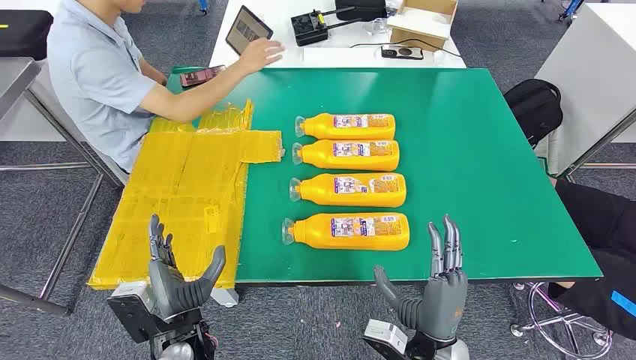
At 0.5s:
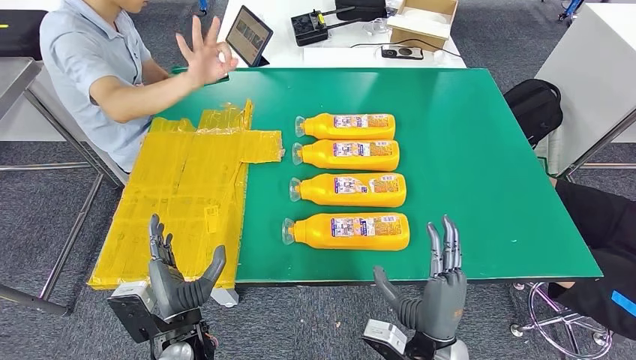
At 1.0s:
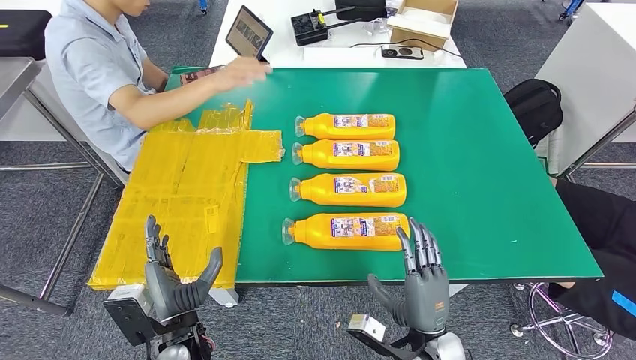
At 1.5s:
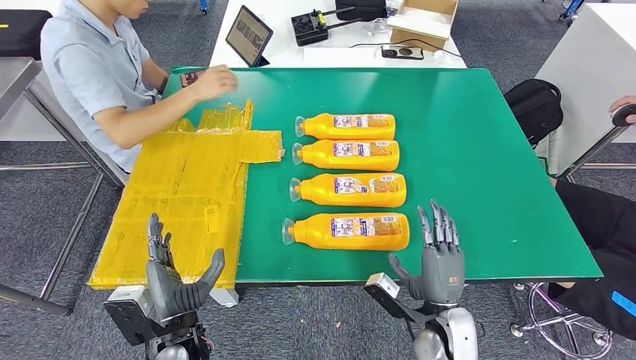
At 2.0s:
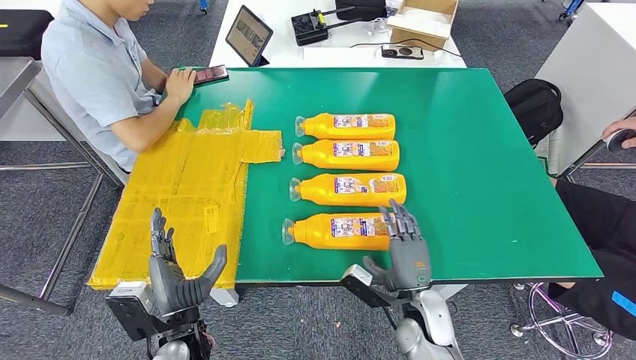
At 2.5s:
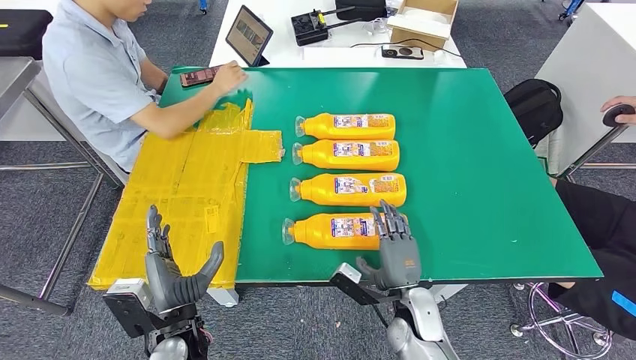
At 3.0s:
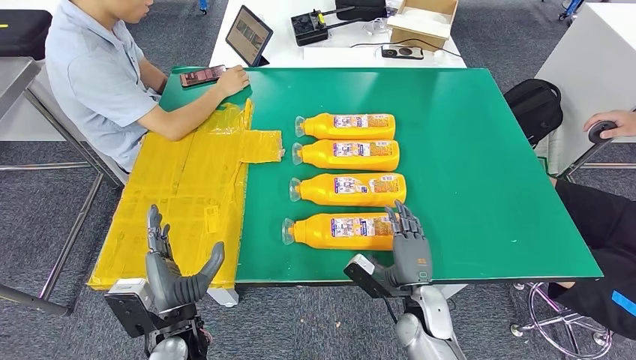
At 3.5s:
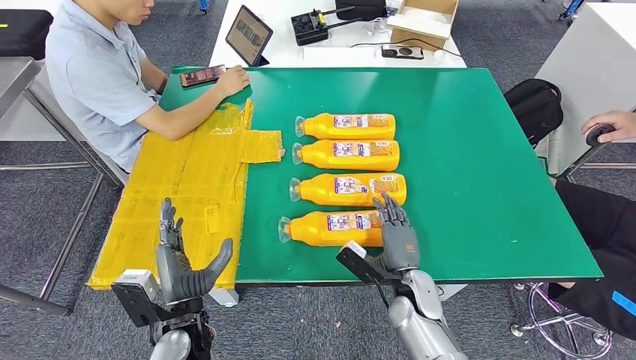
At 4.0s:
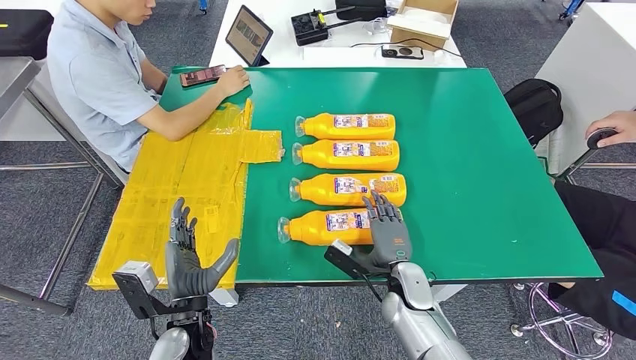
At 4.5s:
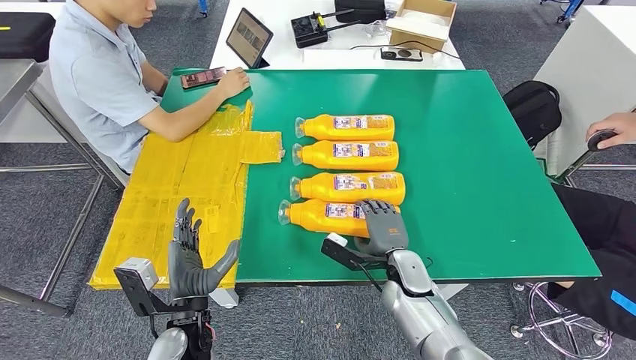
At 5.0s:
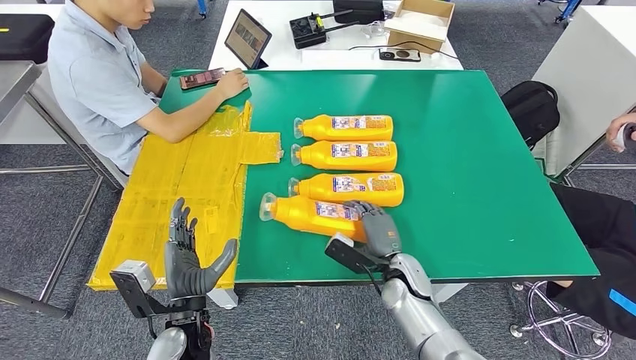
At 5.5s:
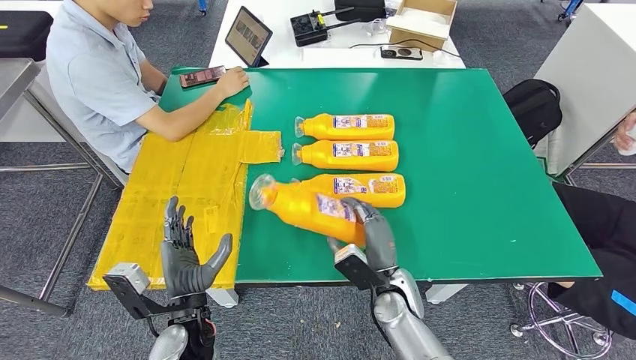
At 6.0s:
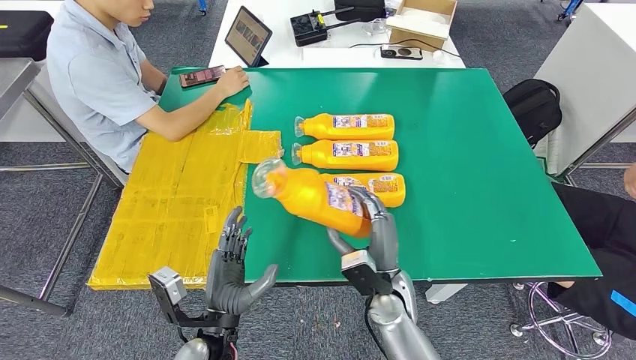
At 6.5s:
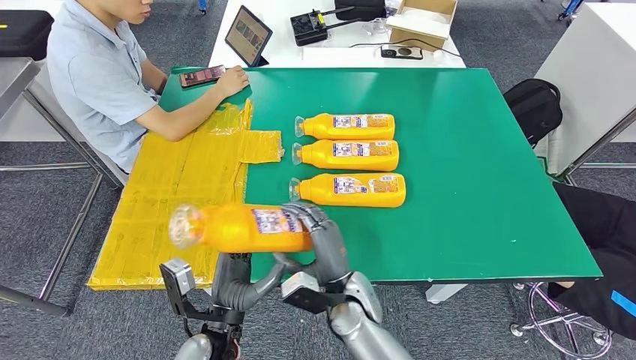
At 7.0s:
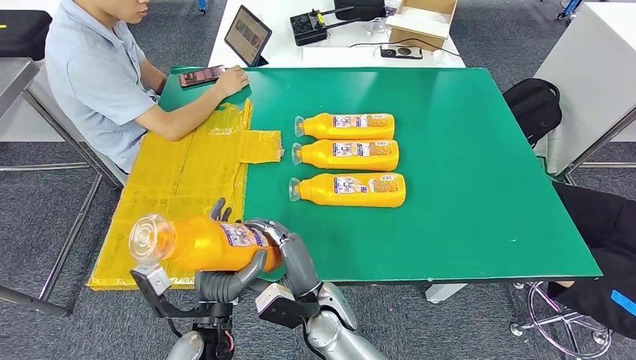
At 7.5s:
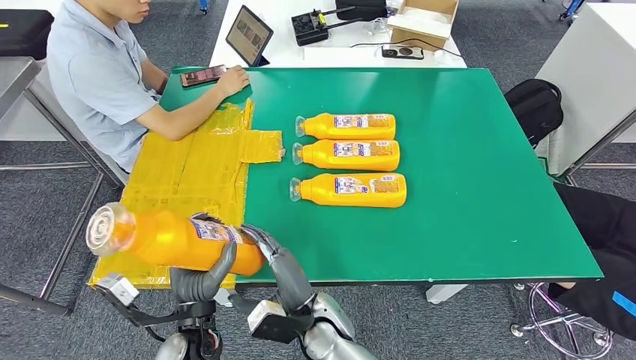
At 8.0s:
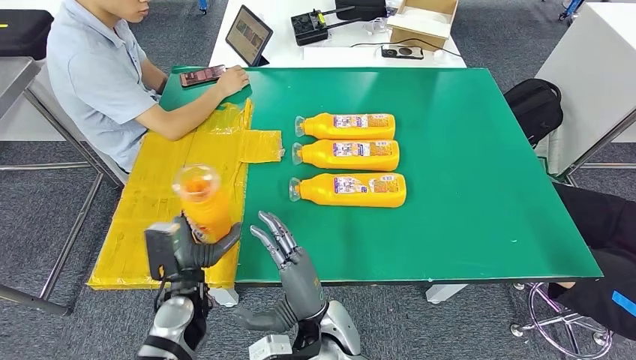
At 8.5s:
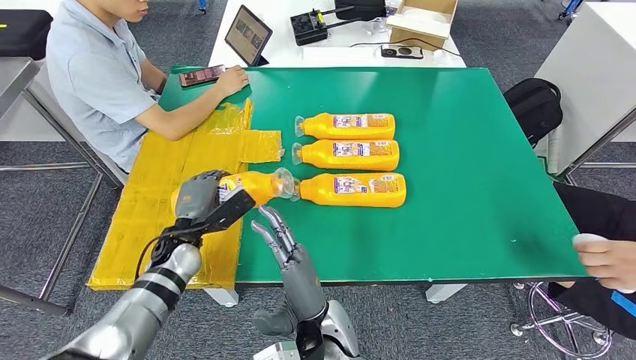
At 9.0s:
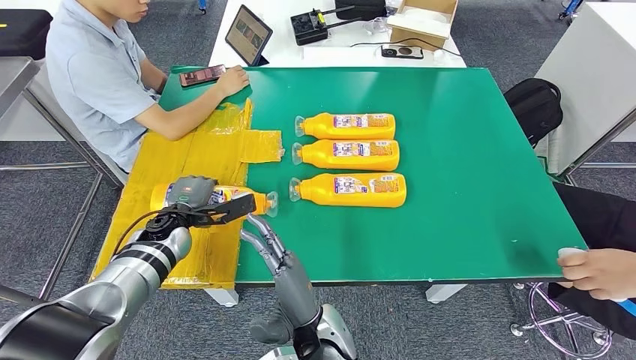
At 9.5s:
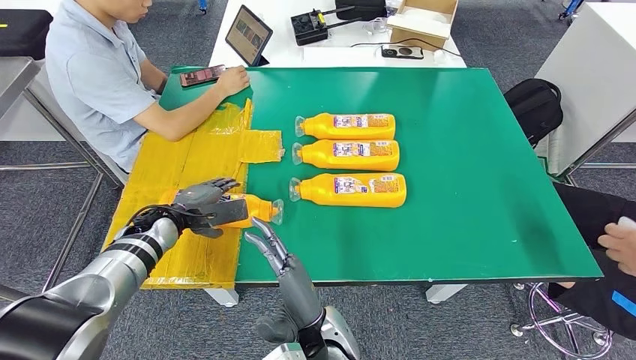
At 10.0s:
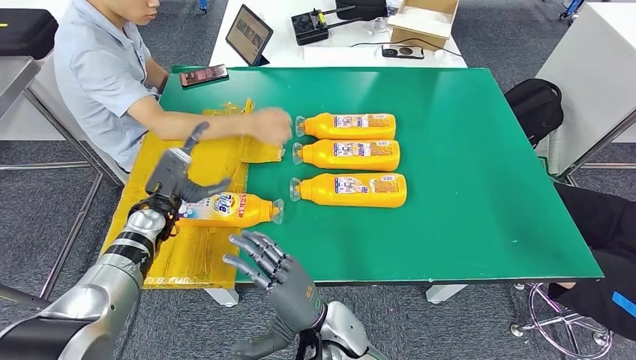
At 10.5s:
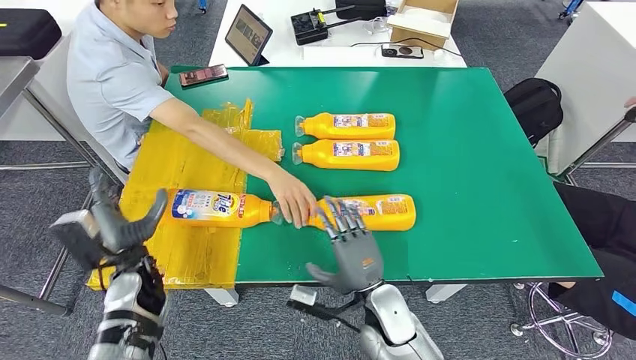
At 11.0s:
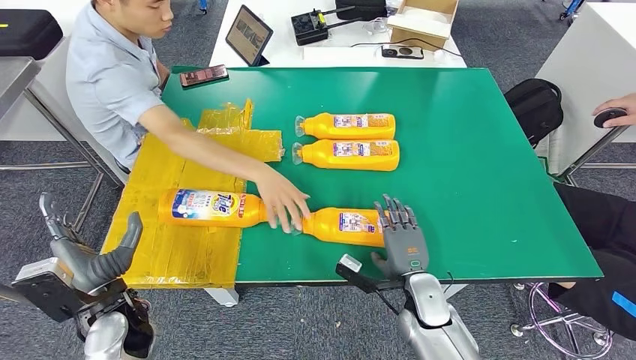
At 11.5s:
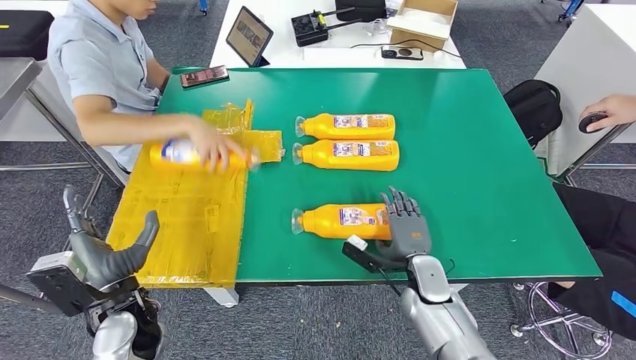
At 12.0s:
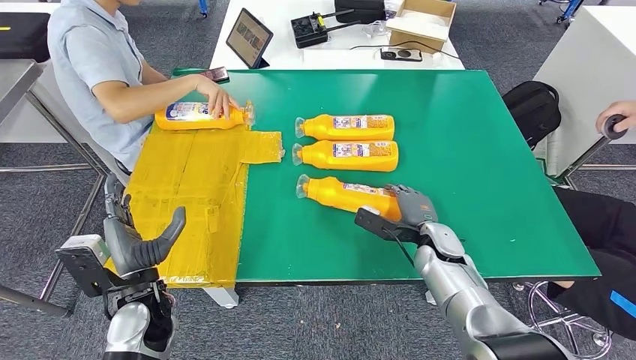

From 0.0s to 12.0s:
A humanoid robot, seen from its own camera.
Step, from 0.0s to 6.5s: Take the fast-moving consumer goods bottle from the table.
Step, from 7.0s to 9.0s: Flip the fast-moving consumer goods bottle to the front side.
From 2.0s to 4.0s: The right hand goes roughly 5 cm forward.
From 4.0s to 6.0s: The right hand moves approximately 5 cm.
From 6.0s to 8.0s: The left hand travels forward and to the left by approximately 10 cm, while the right hand heads to the left and backward, covering some 15 cm.
From 8.0s to 10.0s: The left hand heads forward and to the left, covering roughly 15 cm.

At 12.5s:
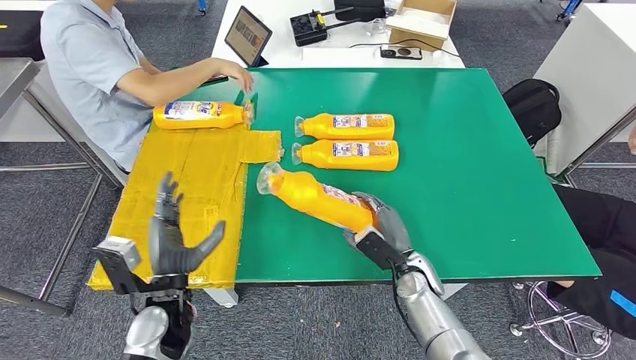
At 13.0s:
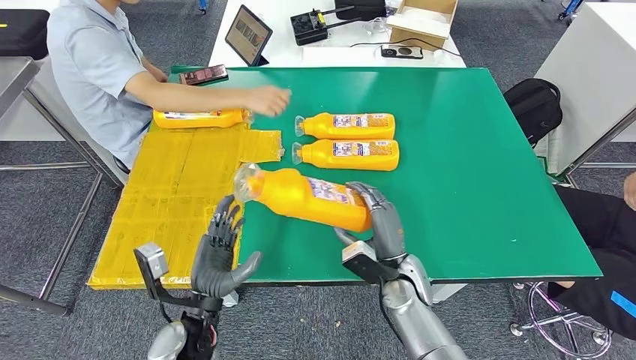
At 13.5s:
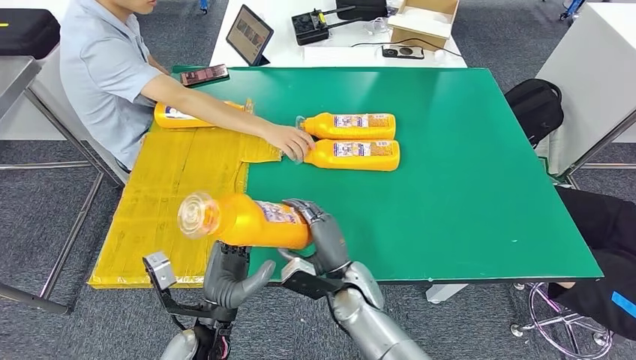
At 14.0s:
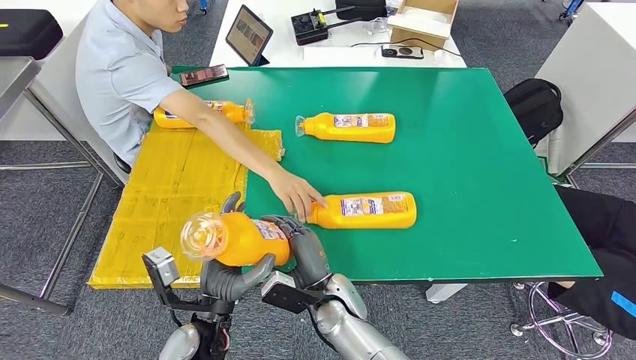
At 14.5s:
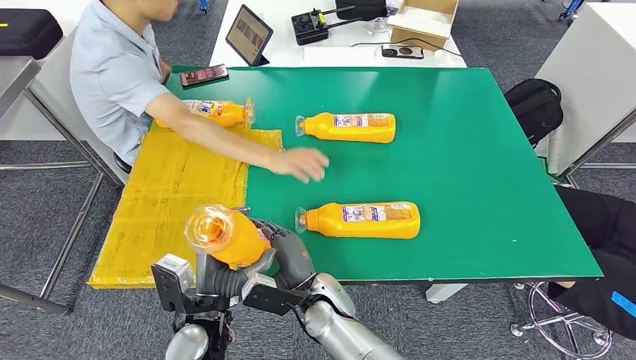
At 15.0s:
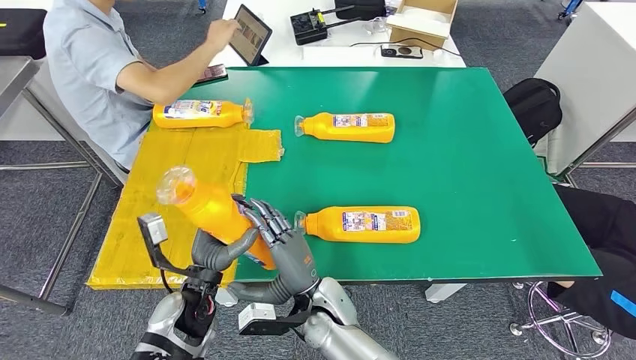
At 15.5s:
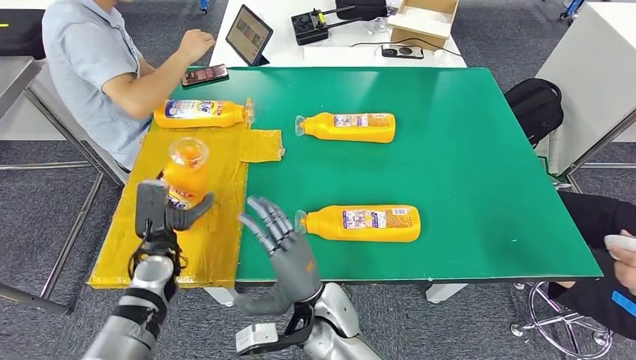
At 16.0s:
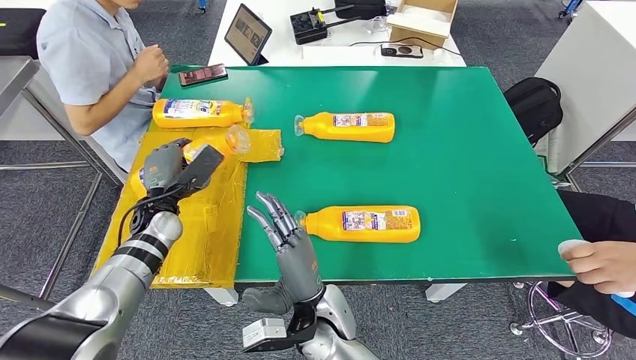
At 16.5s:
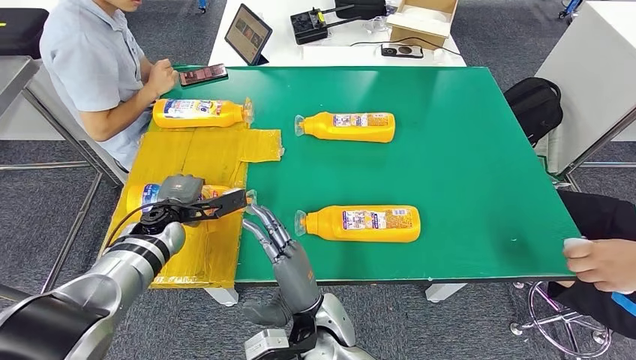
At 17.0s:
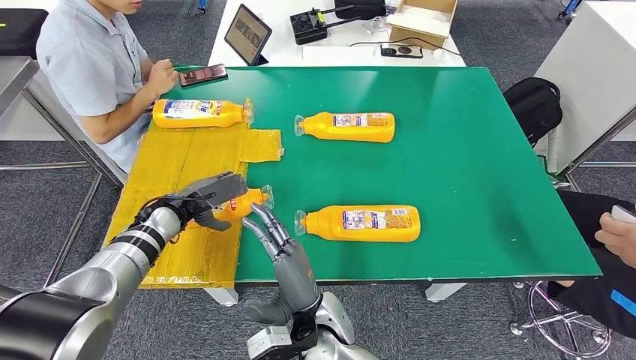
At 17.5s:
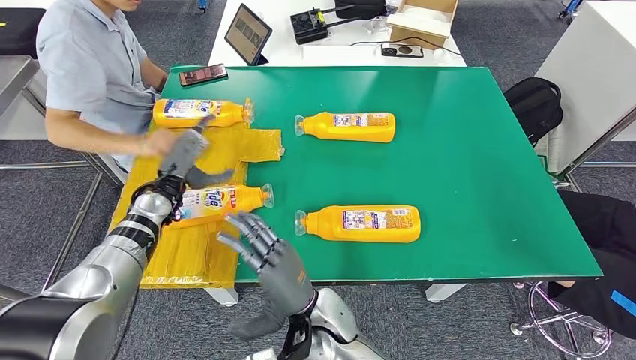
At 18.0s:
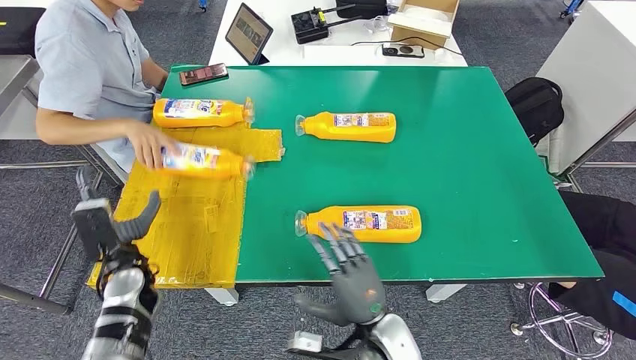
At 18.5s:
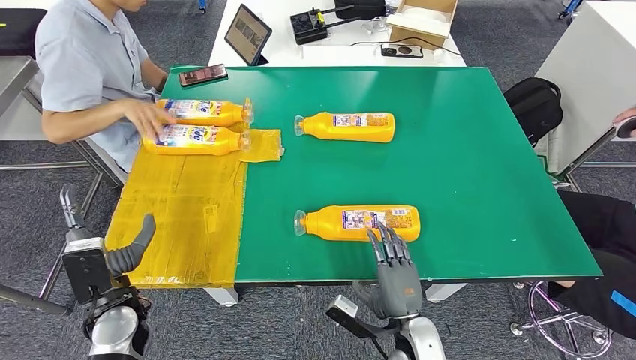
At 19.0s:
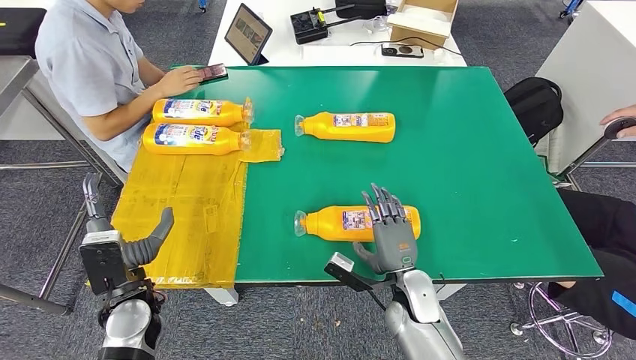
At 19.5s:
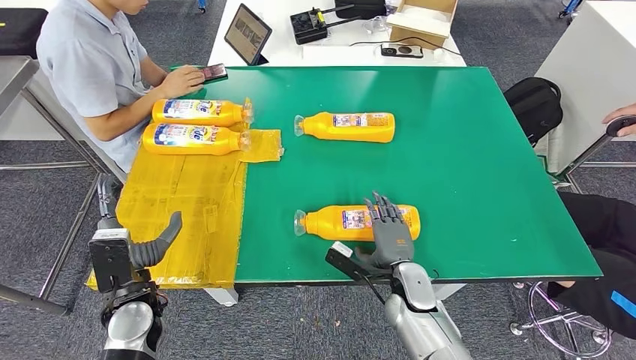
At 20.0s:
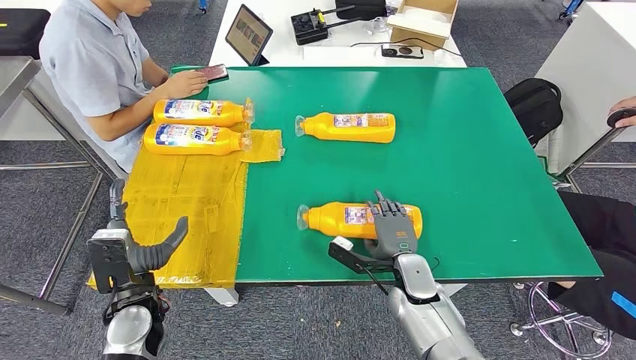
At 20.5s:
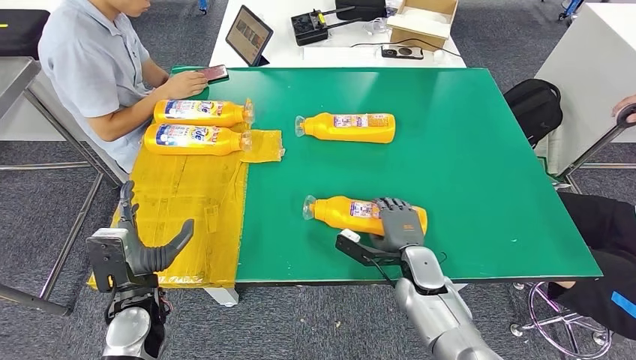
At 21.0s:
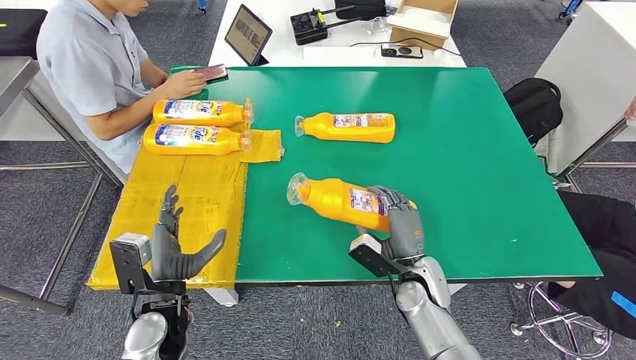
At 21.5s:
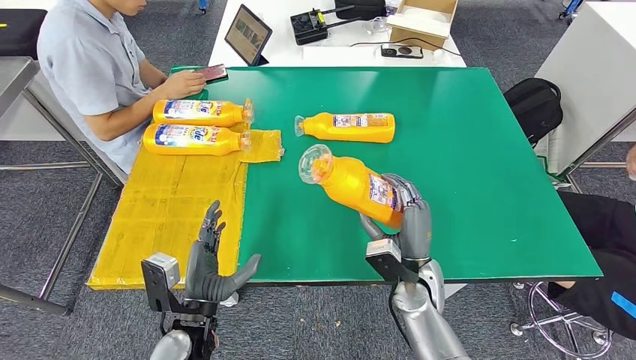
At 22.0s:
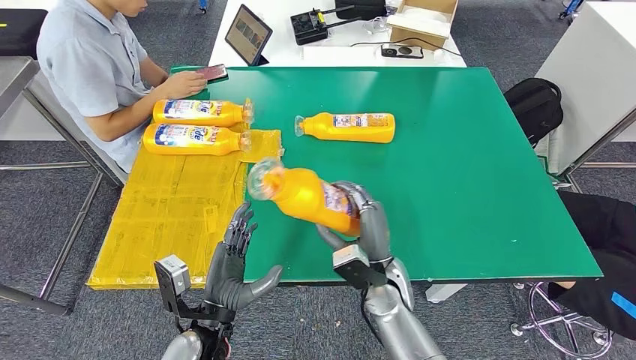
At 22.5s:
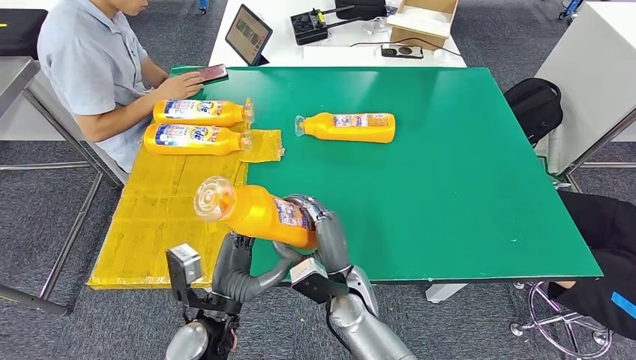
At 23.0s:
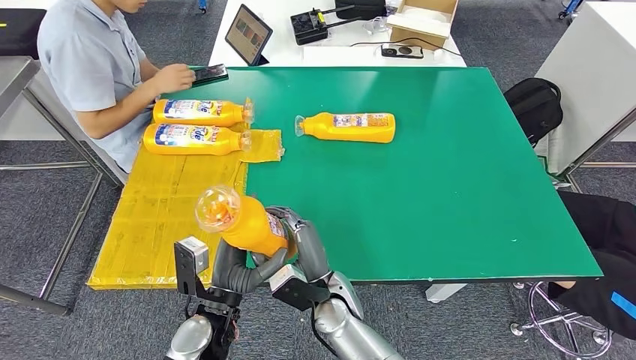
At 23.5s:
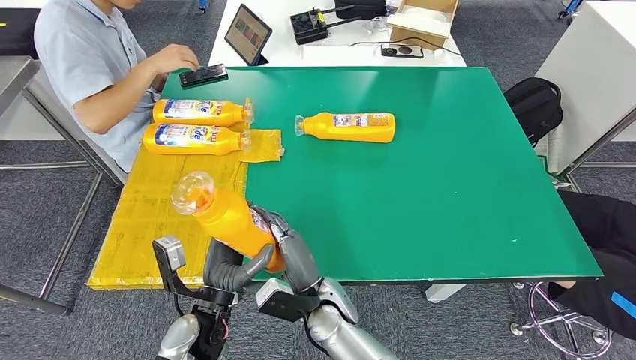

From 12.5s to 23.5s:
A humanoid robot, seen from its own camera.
Step, from 13.0s to 16.5s: Flip the fast-moving consumer goods bottle to the front side.
Step, from 17.0s to 22.5s: Pick up the fast-moving consumer goods bottle from the table.
From 20.0s to 21.5s: The left hand heads to the right, covering about 10 cm.
From 21.5s to 23.5s: The right hand travels to the left by approximately 15 cm.
